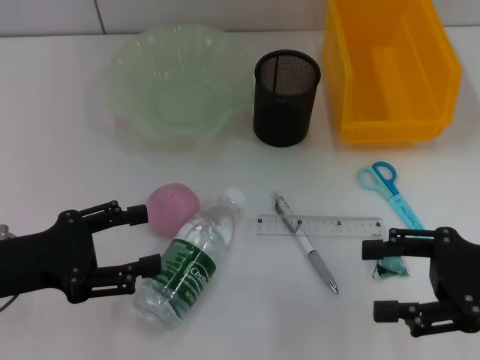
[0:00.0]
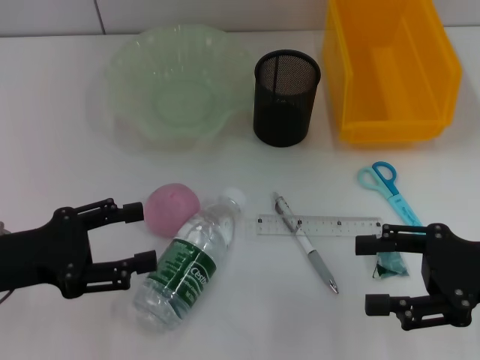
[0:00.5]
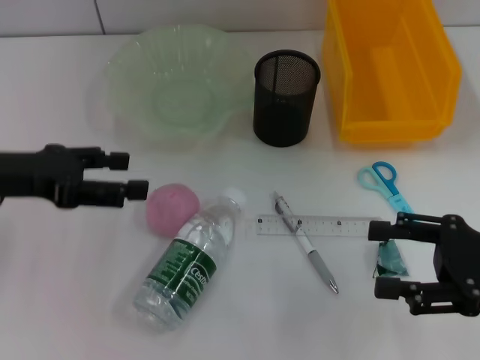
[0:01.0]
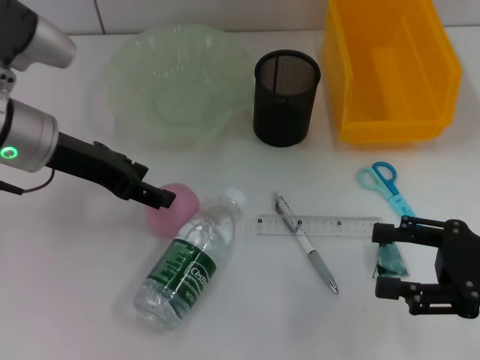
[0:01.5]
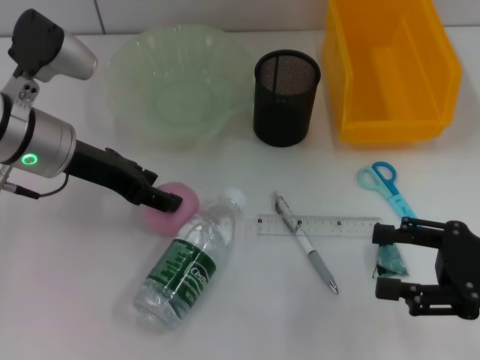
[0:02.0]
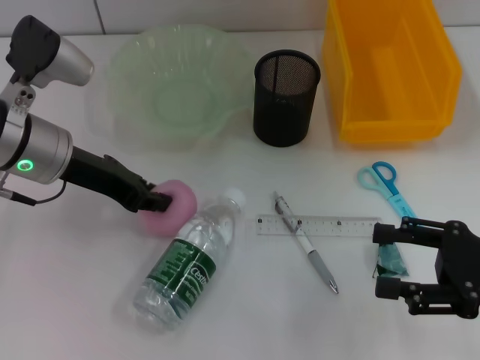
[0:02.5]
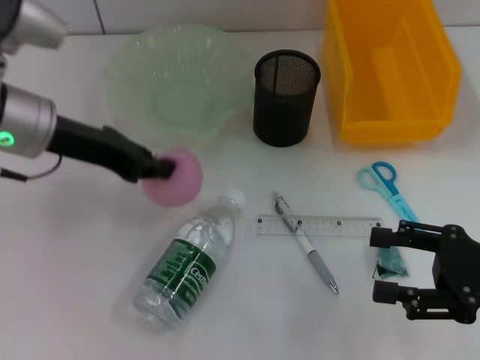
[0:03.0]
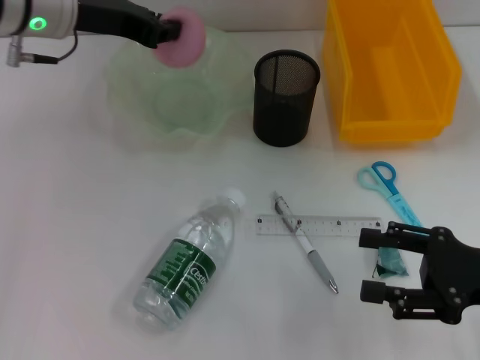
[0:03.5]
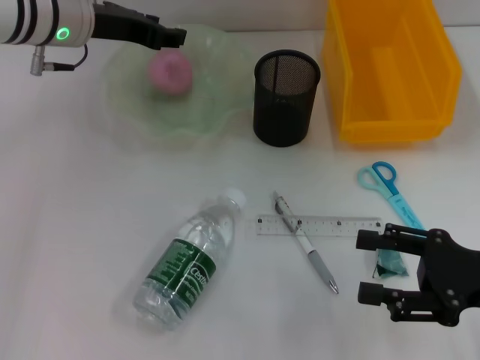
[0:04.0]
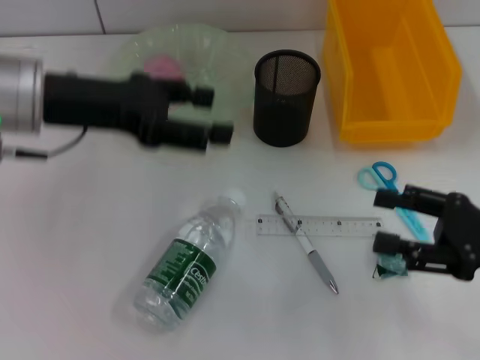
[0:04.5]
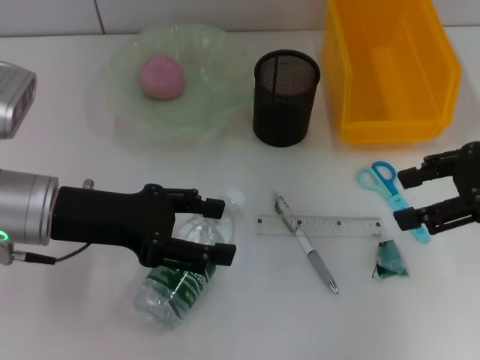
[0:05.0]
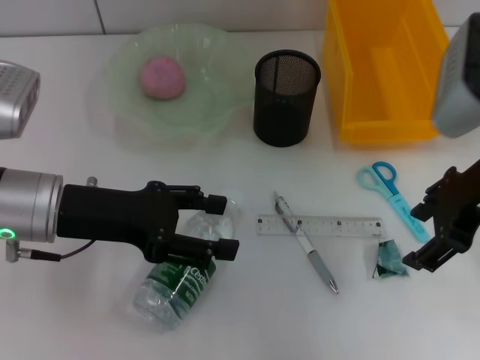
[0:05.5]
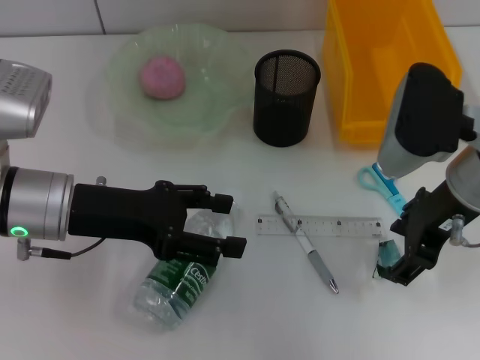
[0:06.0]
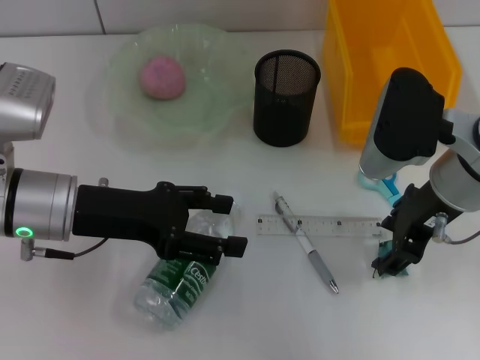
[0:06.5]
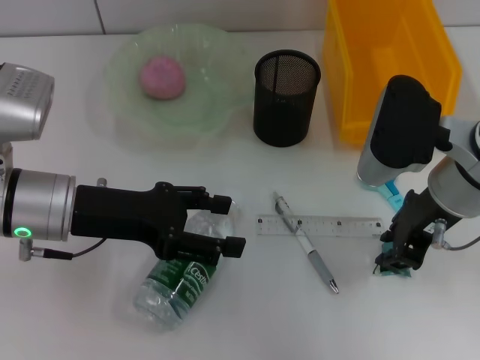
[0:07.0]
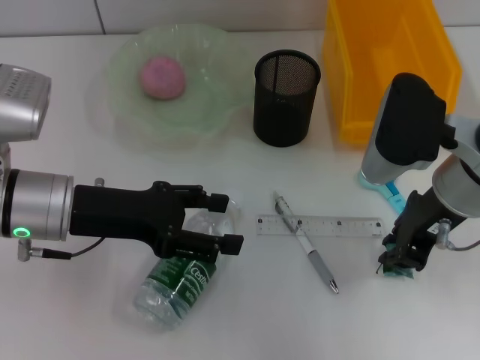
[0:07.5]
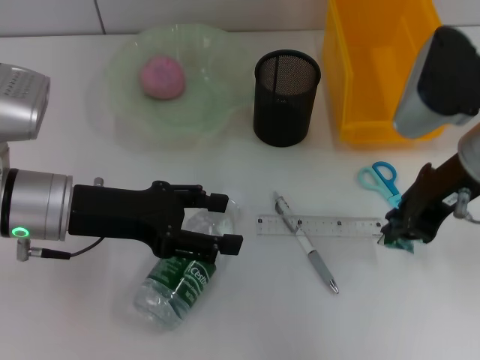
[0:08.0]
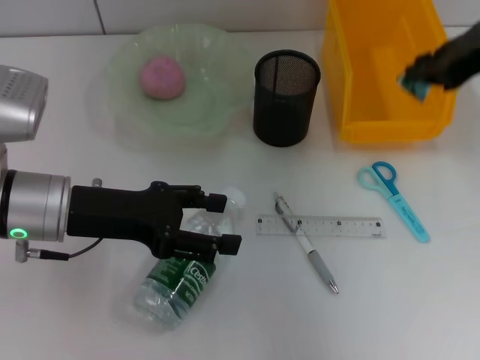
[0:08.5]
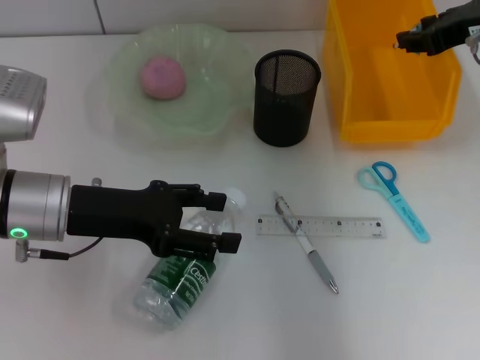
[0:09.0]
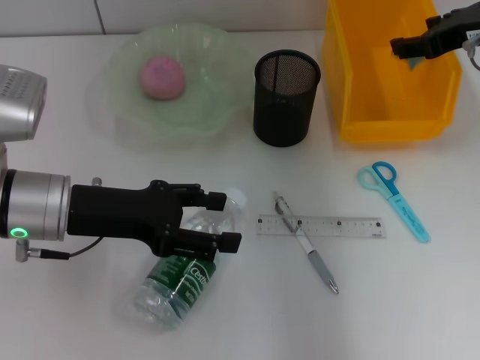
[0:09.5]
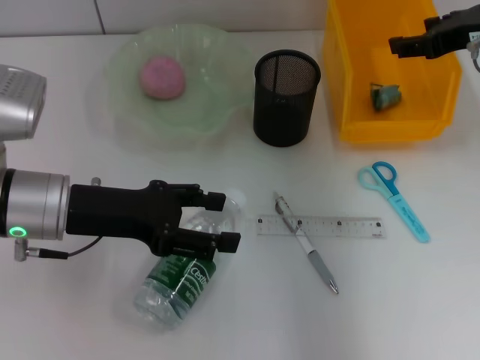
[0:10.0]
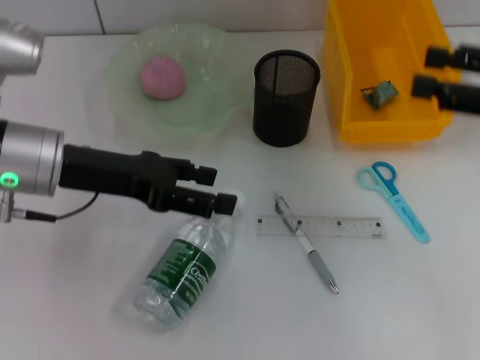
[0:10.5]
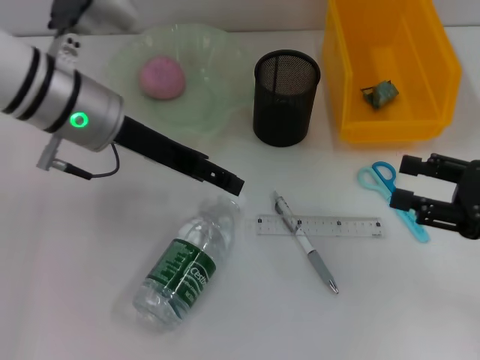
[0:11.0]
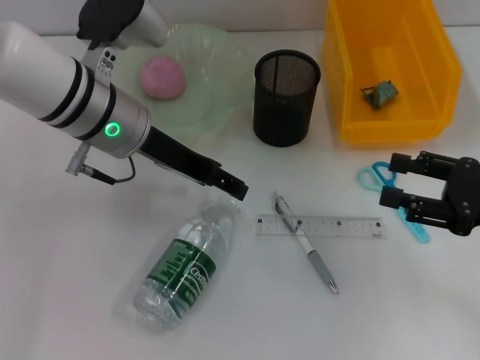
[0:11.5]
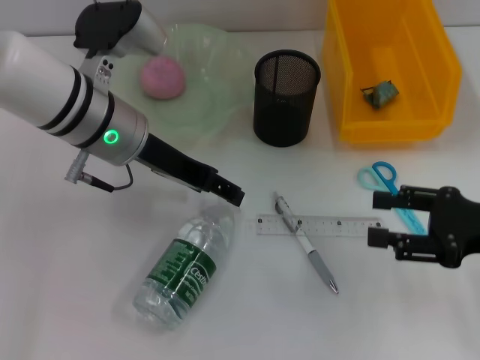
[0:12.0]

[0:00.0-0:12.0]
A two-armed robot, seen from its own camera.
Step, 0.0 to 2.5 s: Grab the peach with the left hand.
Step, 3.0 to 4.0 s: Place the peach into the fruit bowl with the left hand.
Step, 4.5 to 7.0 s: Grab the plastic with the right hand.
Step, 7.5 to 10.0 s: Place the plastic into the trash can with the right hand.
0.0 to 2.0 s: The left gripper shifts approximately 15 cm forward and to the right.
2.0 to 4.0 s: The left gripper heads forward, covering approximately 10 cm, and closes its fingers.
4.0 to 6.0 s: The right gripper is displaced to the left, forward and upward by about 15 cm. The left gripper moves backward and downward, about 15 cm, and opens up.
6.0 to 8.0 s: The right gripper closes.
8.0 to 10.0 s: The right gripper travels forward and to the right by approximately 10 cm, and opens its fingers.
10.0 to 12.0 s: The left gripper goes approximately 10 cm to the right and forward. Meanwhile the right gripper shifts some 20 cm backward and downward.

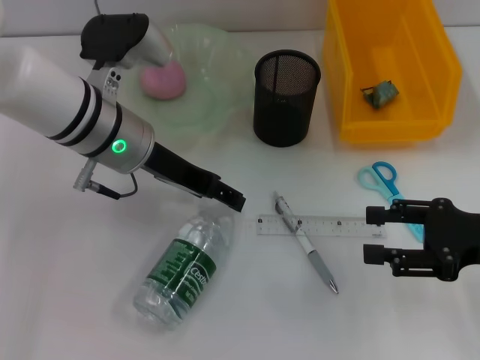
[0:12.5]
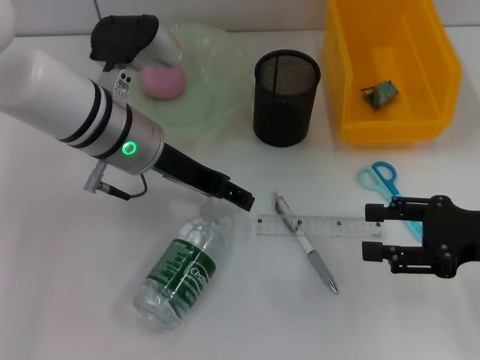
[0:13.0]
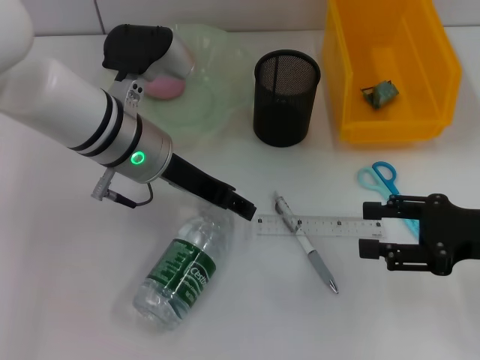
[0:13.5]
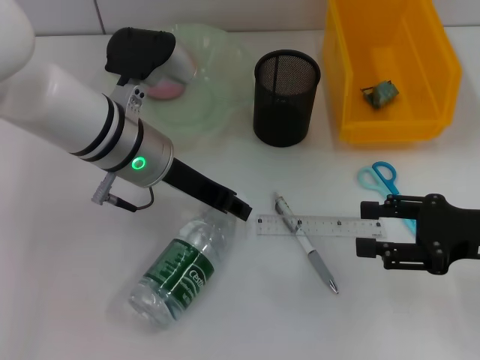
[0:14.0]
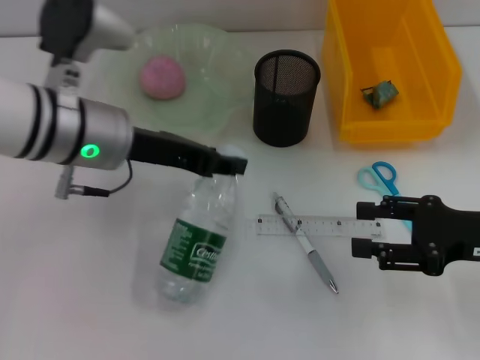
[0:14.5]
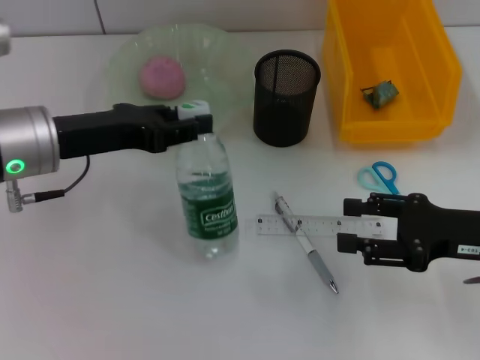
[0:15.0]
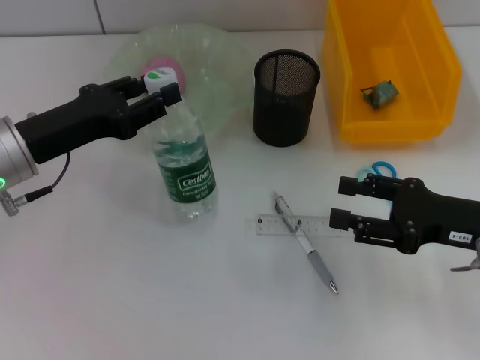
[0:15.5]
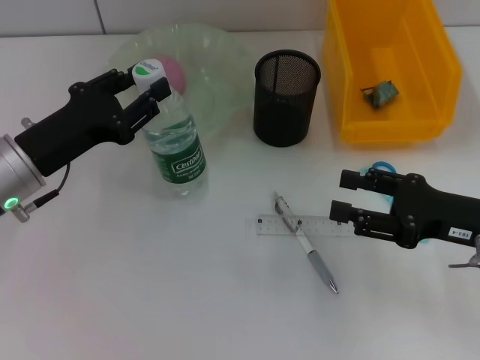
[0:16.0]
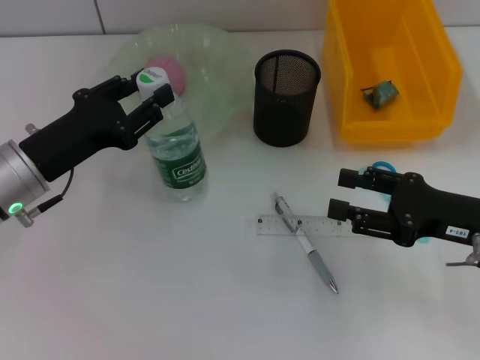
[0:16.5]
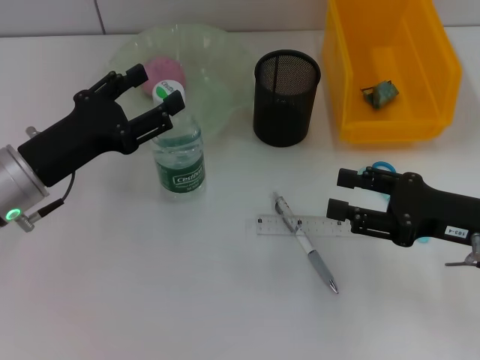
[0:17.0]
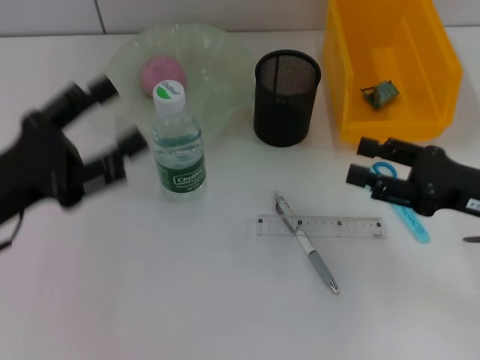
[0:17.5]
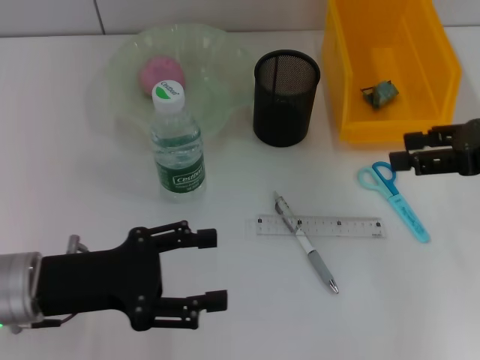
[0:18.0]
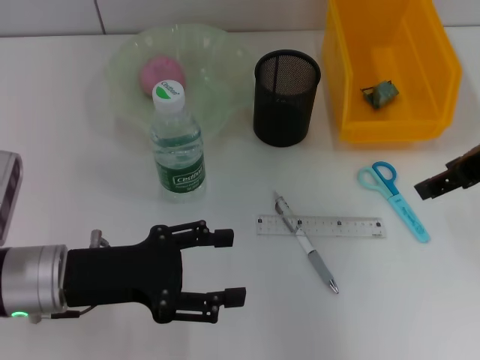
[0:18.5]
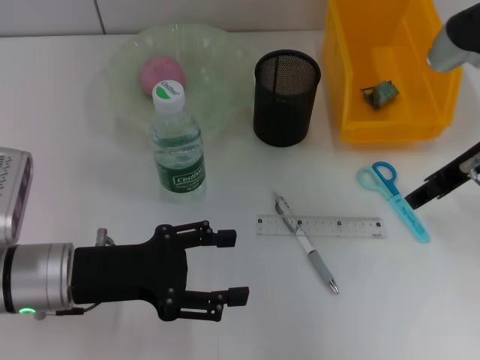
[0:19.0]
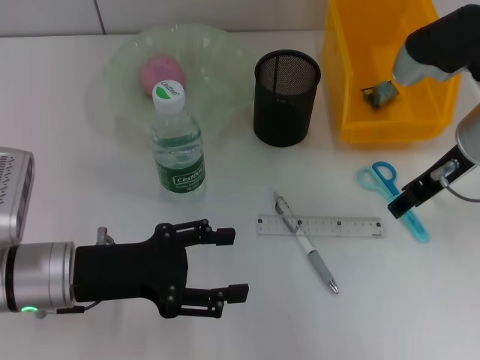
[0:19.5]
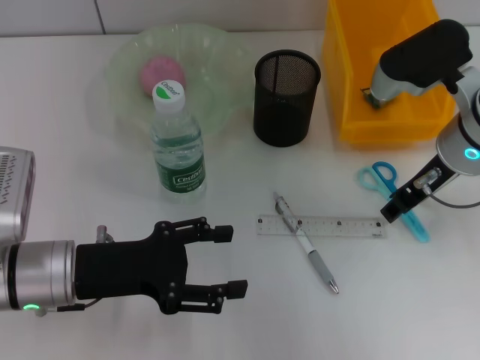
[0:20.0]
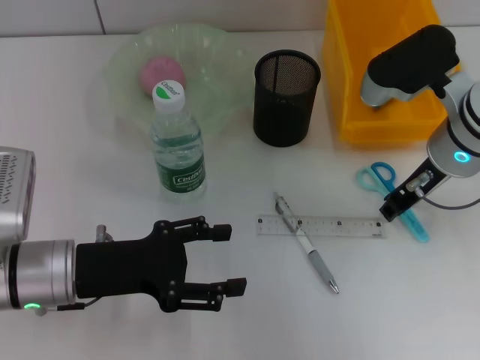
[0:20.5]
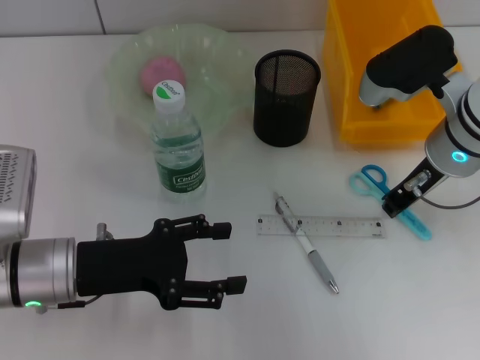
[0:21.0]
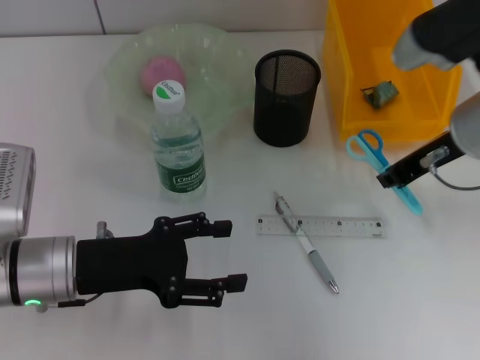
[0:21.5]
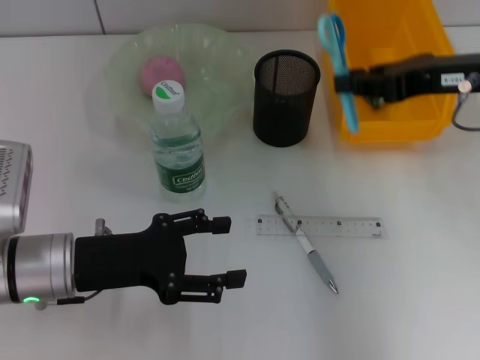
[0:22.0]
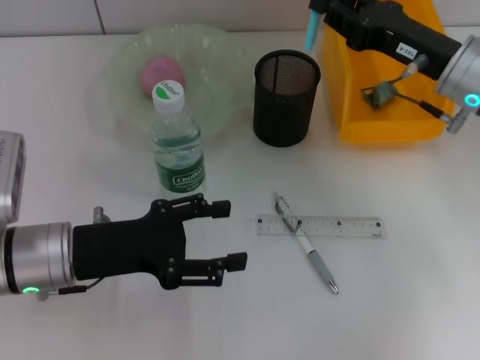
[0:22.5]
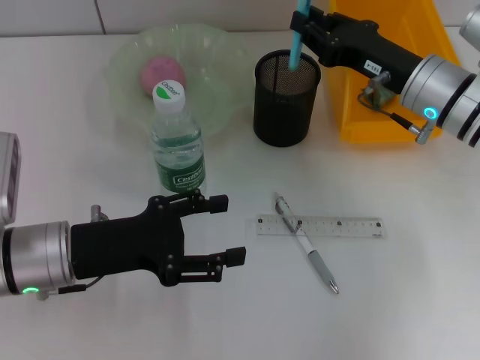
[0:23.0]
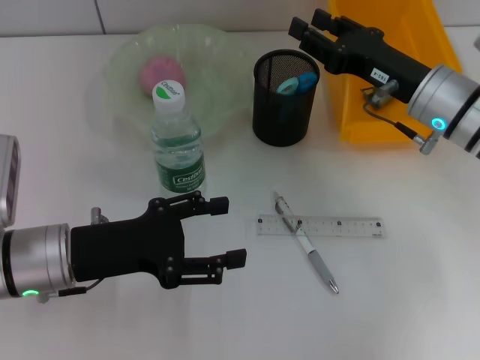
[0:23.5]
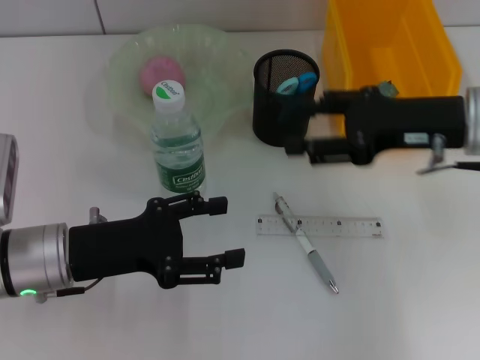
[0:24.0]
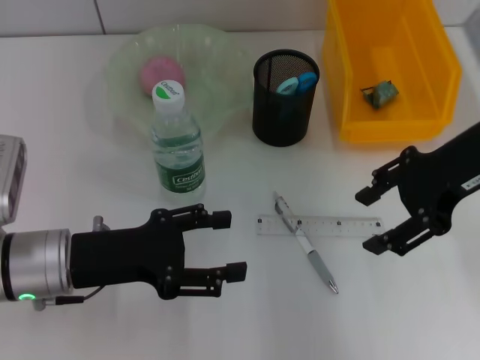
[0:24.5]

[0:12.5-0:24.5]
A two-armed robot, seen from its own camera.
Step, 14.0 to 17.0 s: Place the water bottle on the table with the left hand.
Step, 17.5 to 21.0 s: Grab the blue scissors with the right hand.
Step, 21.5 to 23.0 s: Place the blue scissors into the pen holder with the right hand.
12.5 to 14.5 s: The left gripper closes its fingers.
14.5 to 16.5 s: The left gripper heads to the left and downward, covering some 10 cm.
16.5 to 18.5 s: The right gripper shifts approximately 15 cm upward and forward. The left gripper travels backward by roughly 5 cm, and opens.
18.5 to 20.5 s: The right gripper shifts roughly 10 cm downward and to the left, and closes.
20.5 to 22.5 s: The right gripper reaches approximately 5 cm upward, then returns.
22.5 to 24.5 s: The right gripper travels upward by approximately 10 cm, and opens up.

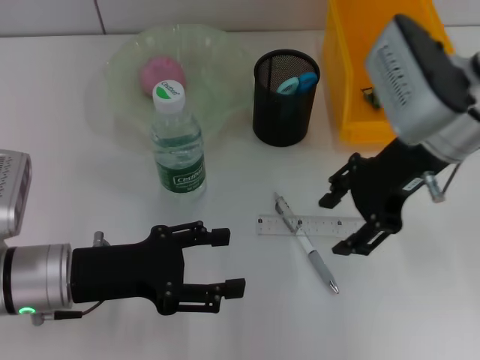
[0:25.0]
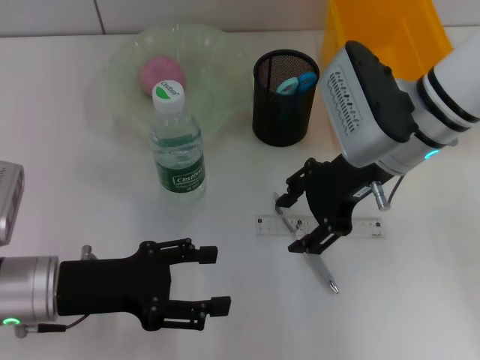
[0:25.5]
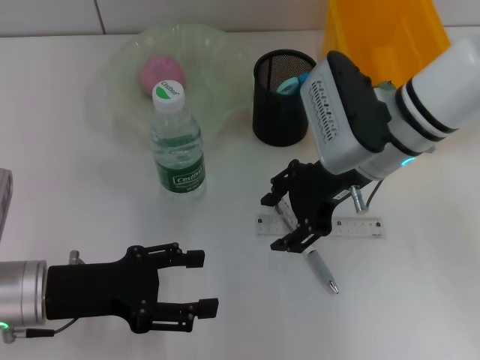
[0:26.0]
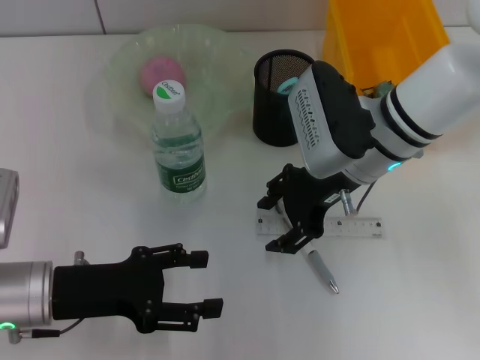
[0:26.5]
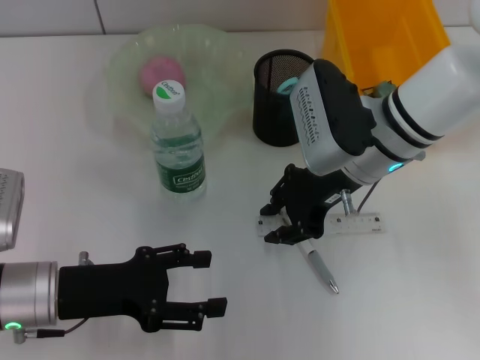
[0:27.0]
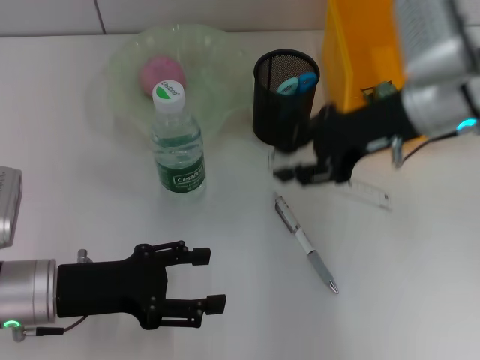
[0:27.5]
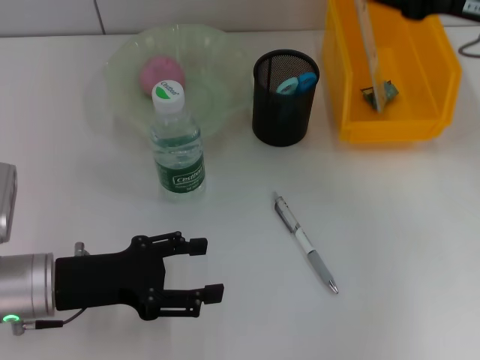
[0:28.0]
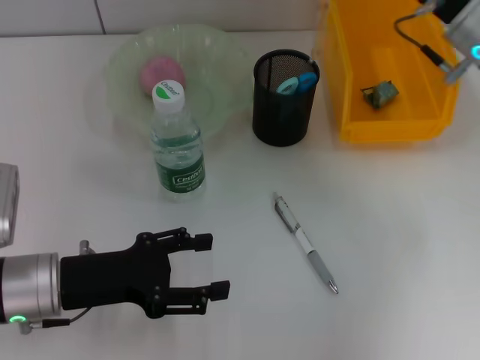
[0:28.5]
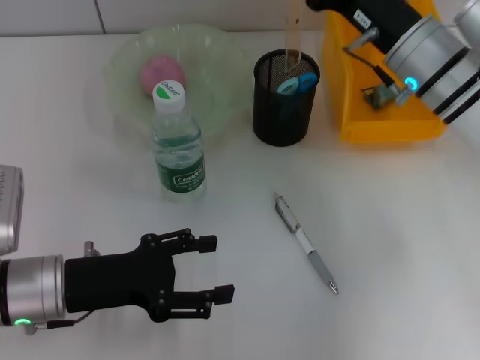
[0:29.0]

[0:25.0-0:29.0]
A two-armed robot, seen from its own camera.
25.0 to 27.0 s: The right gripper shifts approximately 10 cm downward and to the left, and closes its fingers.
